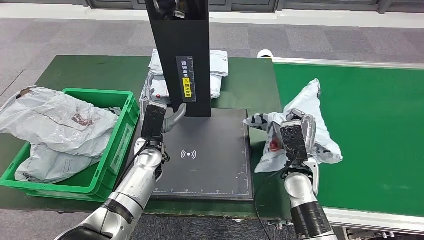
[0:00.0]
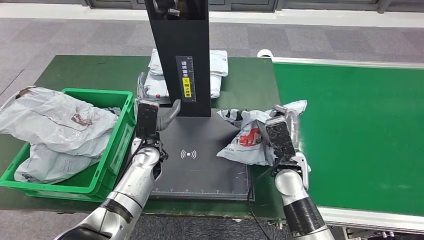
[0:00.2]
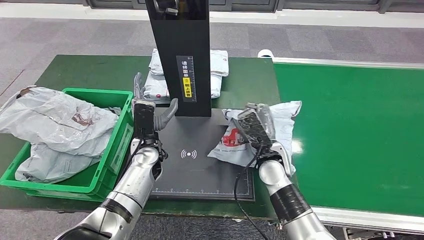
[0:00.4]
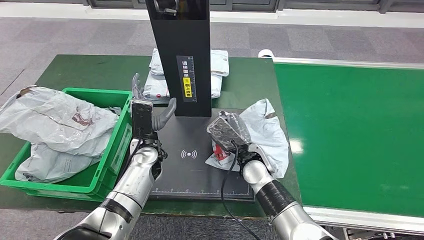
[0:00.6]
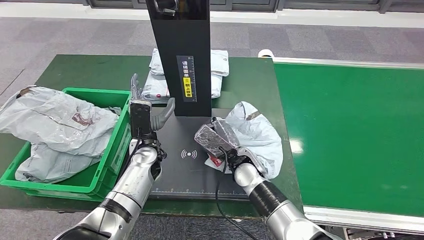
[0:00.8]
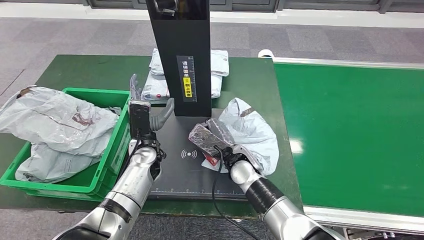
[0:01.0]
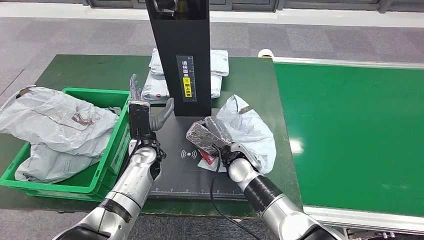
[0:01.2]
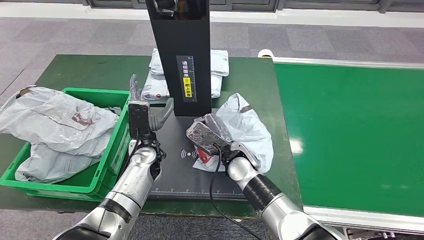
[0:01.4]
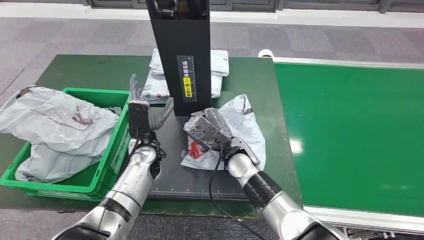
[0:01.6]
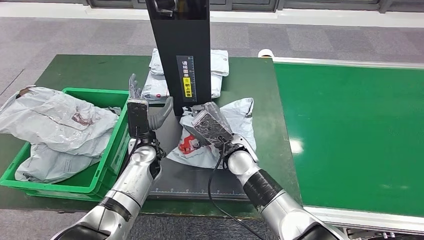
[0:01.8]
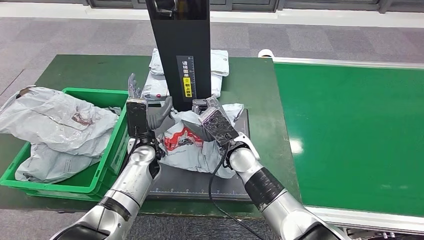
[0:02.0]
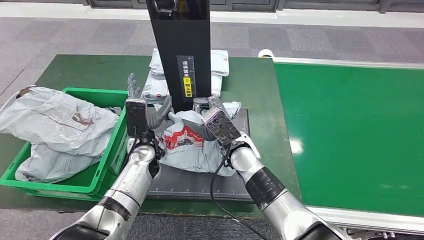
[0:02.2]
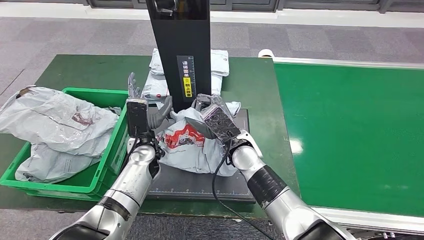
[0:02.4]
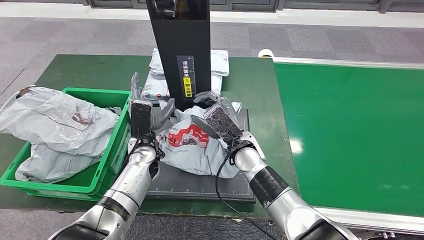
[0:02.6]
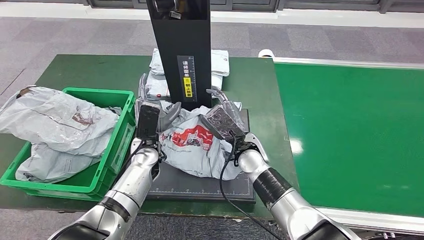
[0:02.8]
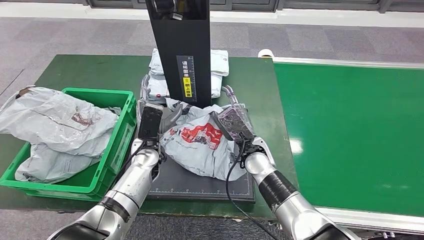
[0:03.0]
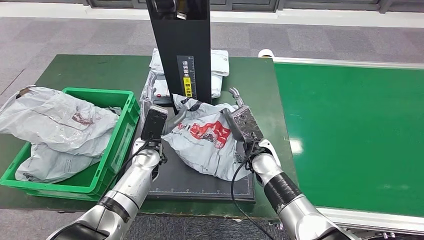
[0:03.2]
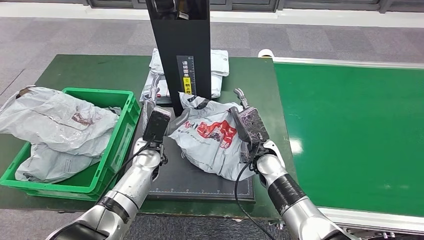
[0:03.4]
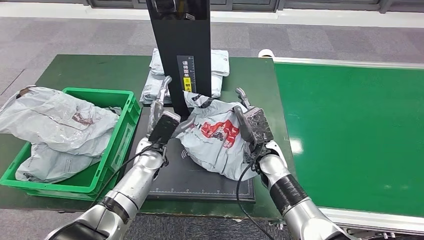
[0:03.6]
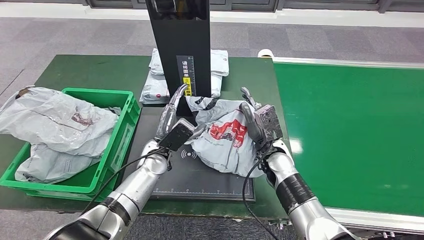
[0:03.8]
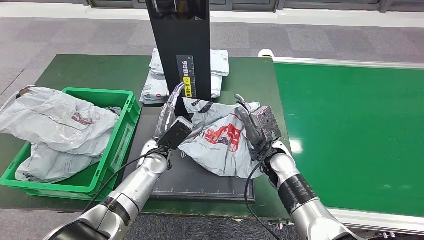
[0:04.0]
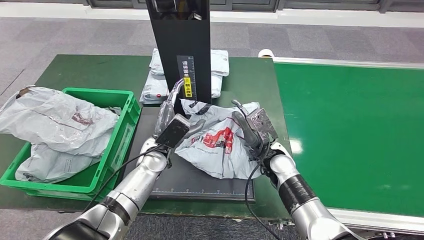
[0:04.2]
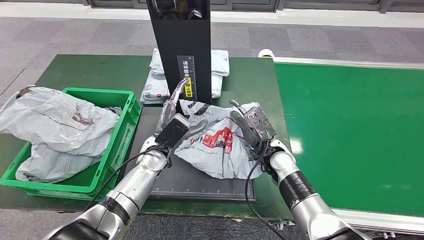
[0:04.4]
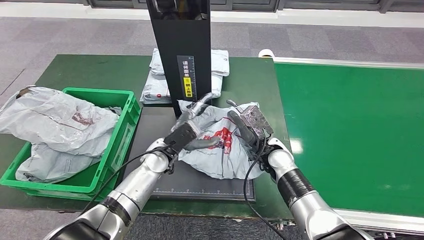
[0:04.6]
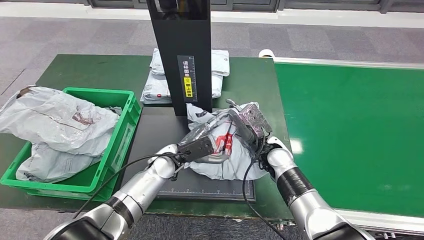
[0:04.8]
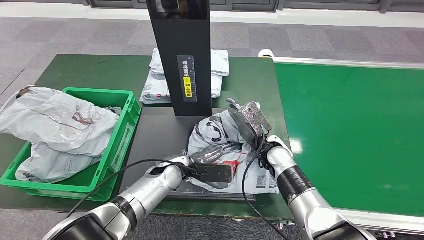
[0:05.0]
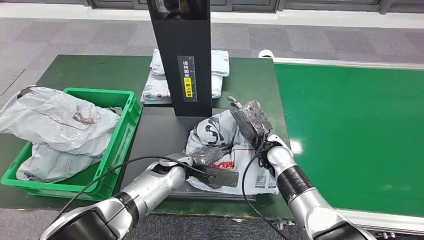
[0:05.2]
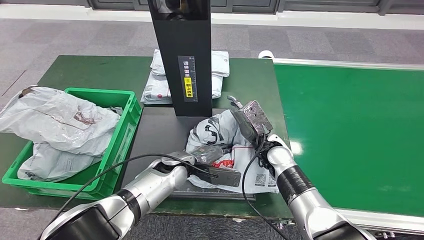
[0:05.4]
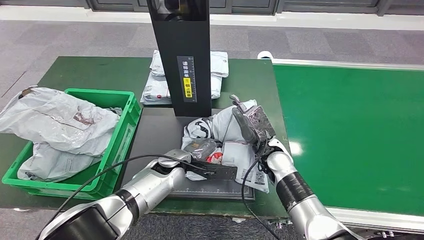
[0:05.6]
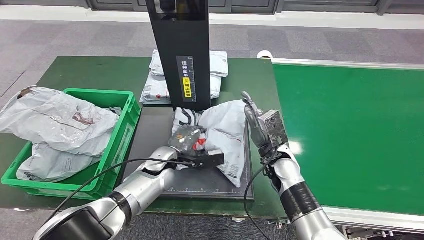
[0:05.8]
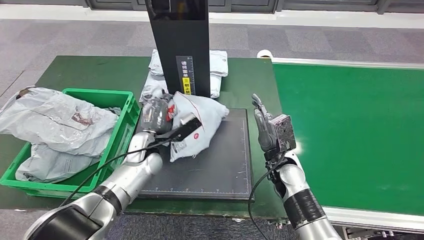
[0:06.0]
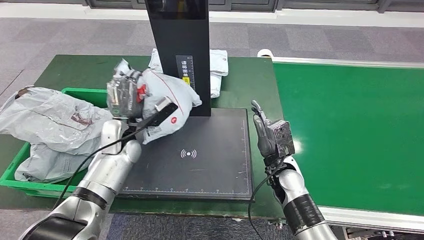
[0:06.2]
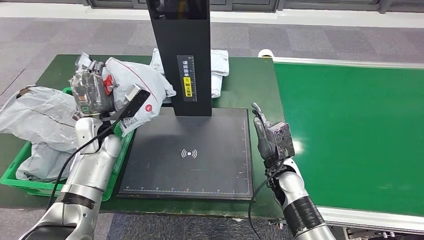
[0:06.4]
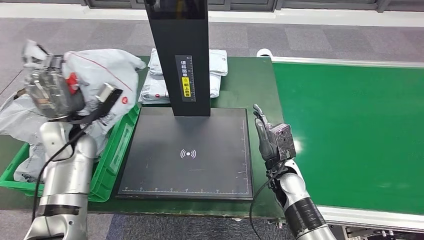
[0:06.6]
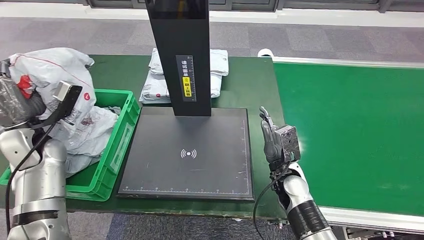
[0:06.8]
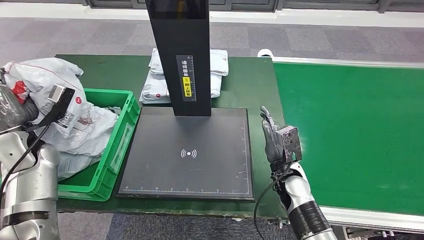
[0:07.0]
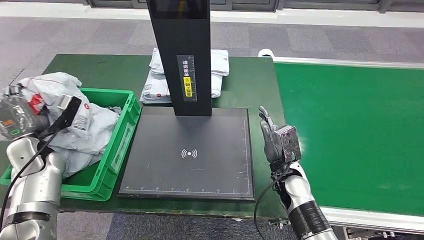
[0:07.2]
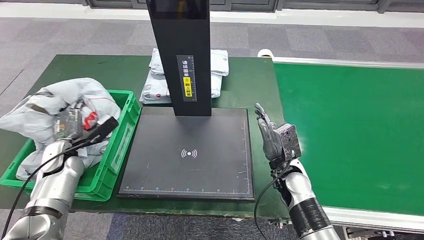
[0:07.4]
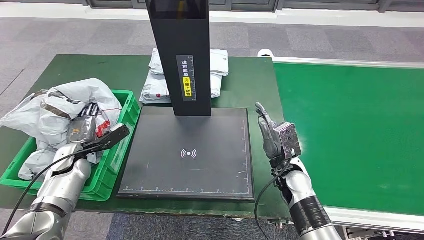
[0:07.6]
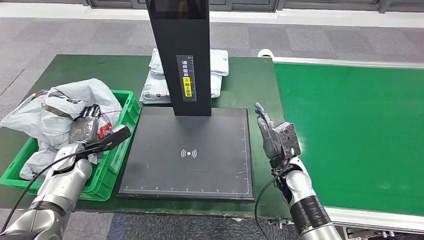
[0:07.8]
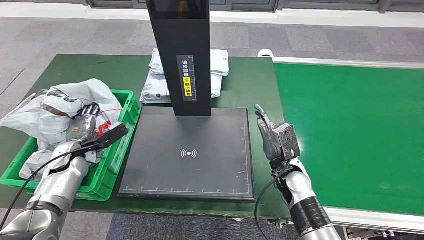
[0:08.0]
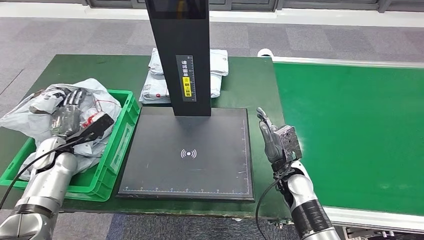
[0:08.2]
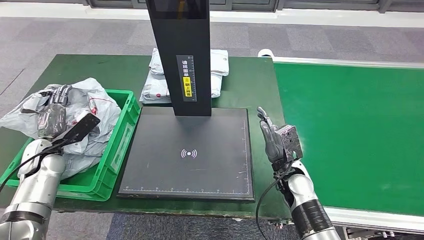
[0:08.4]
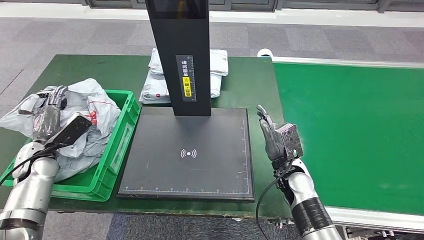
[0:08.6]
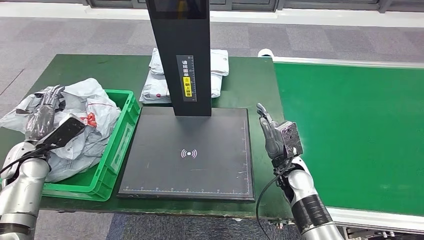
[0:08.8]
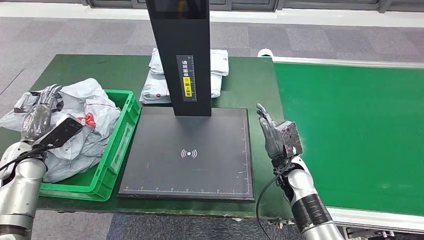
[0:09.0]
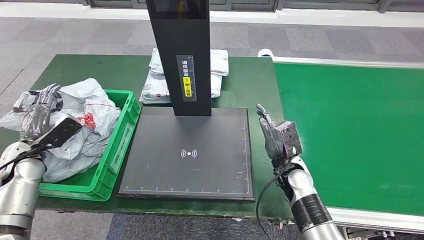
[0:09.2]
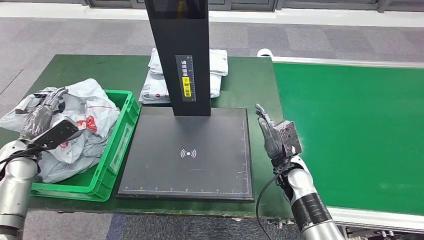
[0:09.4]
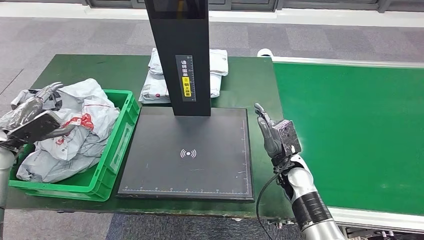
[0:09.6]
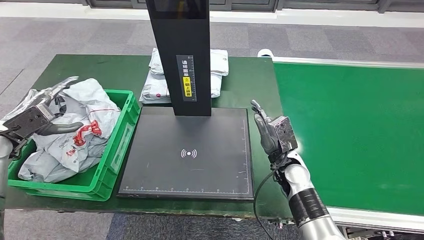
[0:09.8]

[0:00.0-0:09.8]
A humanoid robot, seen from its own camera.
Step, 0:02.2 to 0:03.4: Place the parcel onto the inbound machine.
Step, 0:03.6 to 0:06.4: Pick up the parcel from the inbound machine.
Step, 0:06.6 to 0:09.8: Place the parcel into the delivery box.
0:00.0 to 0:01.4: The right hand travels to the left by approximately 15 cm.
0:02.8 to 0:04.2: The right hand is displaced to the right by about 10 cm.
0:07.0 to 0:08.4: The left hand moves downward, some 10 cm.
0:08.4 to 0:09.8: The left hand heads upward and to the left, covering about 10 cm.
